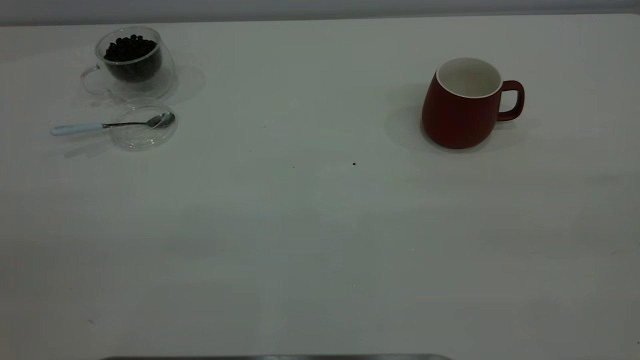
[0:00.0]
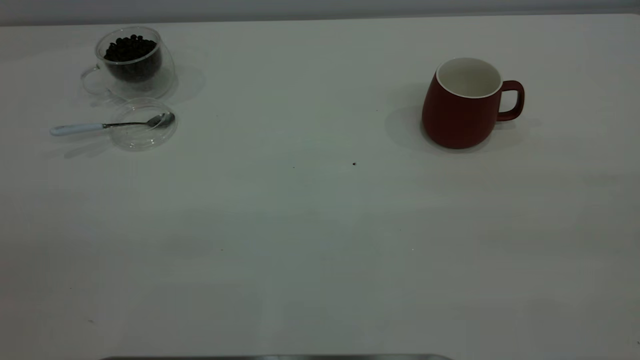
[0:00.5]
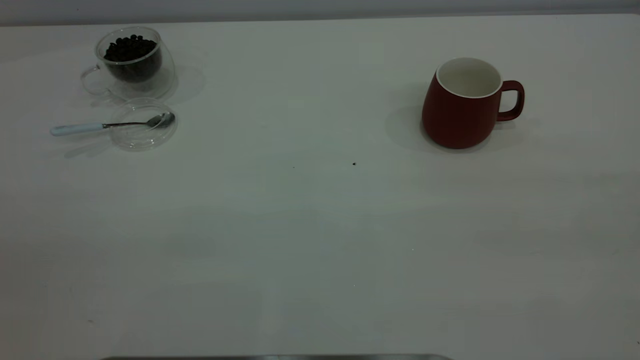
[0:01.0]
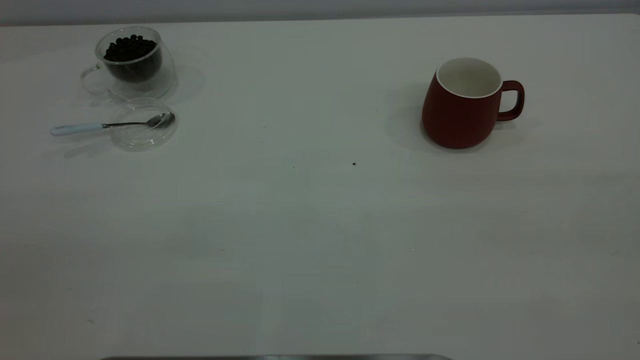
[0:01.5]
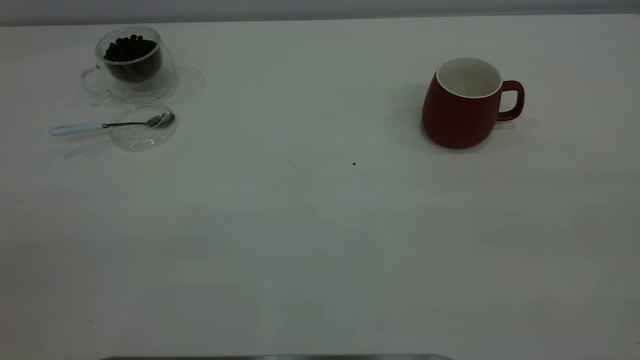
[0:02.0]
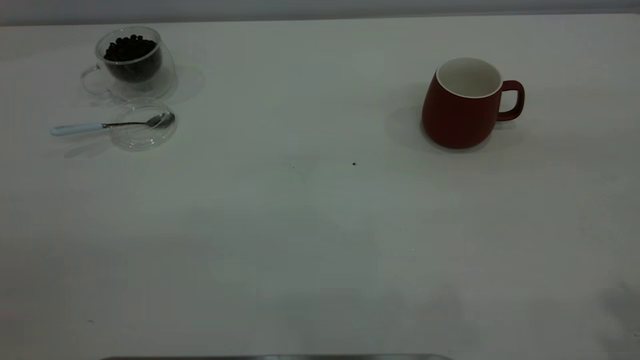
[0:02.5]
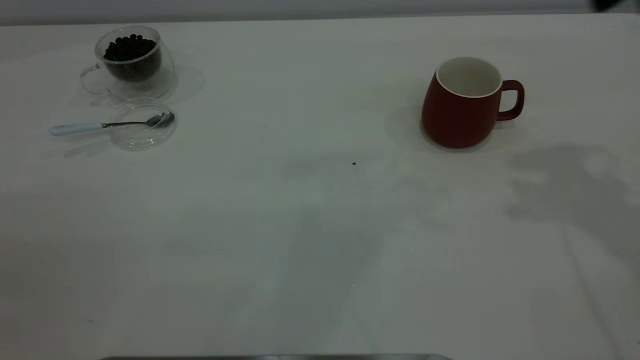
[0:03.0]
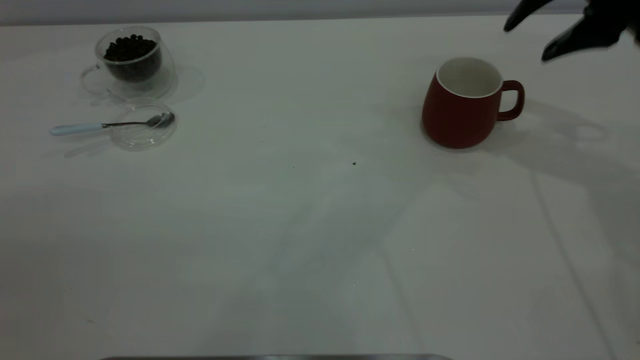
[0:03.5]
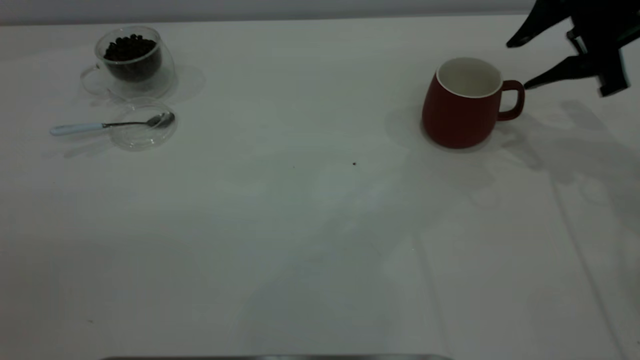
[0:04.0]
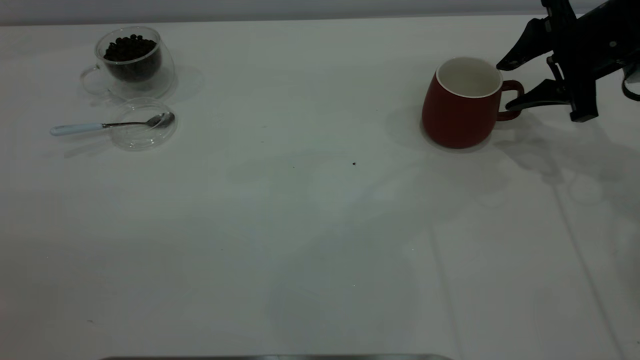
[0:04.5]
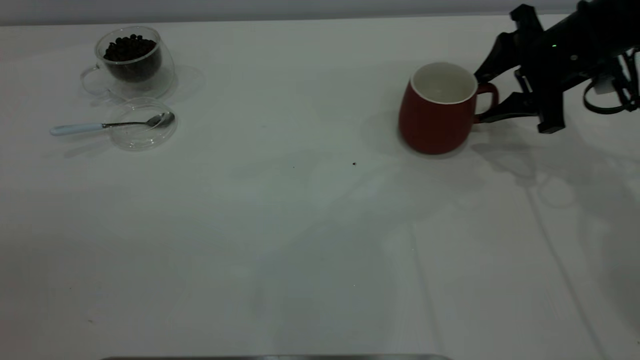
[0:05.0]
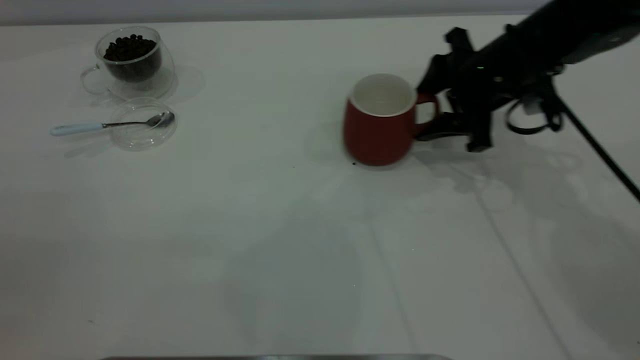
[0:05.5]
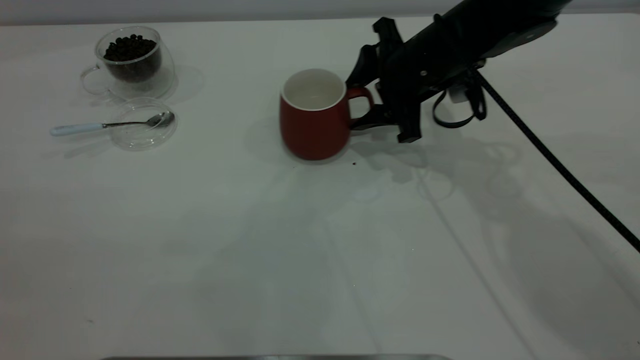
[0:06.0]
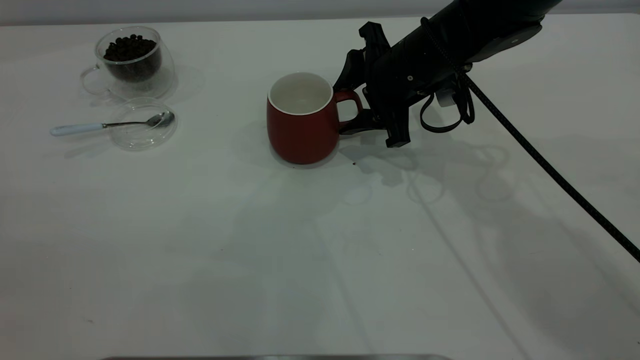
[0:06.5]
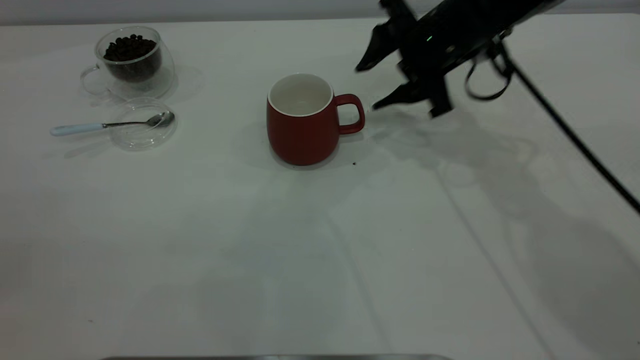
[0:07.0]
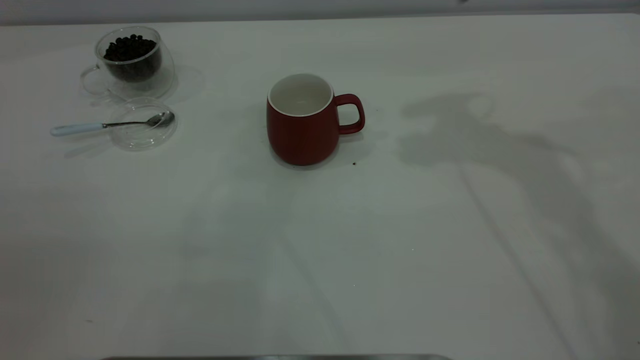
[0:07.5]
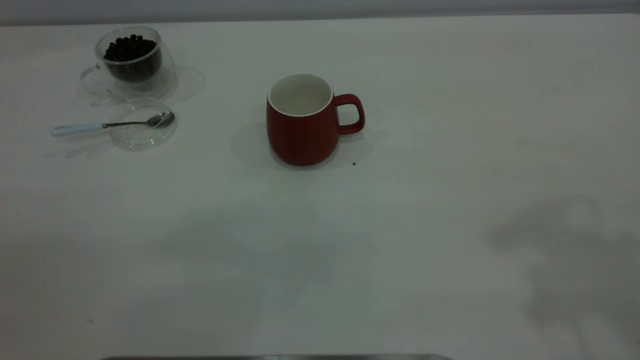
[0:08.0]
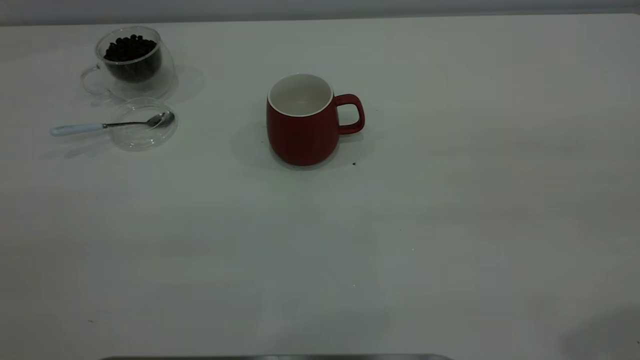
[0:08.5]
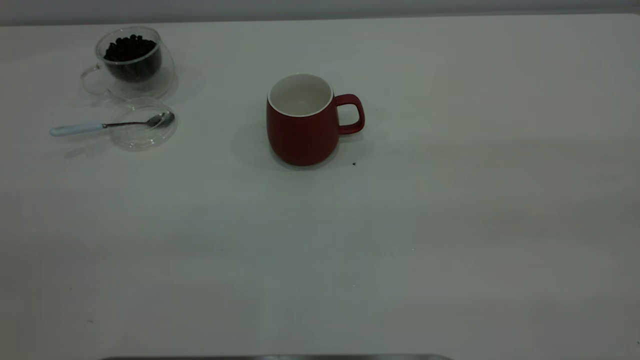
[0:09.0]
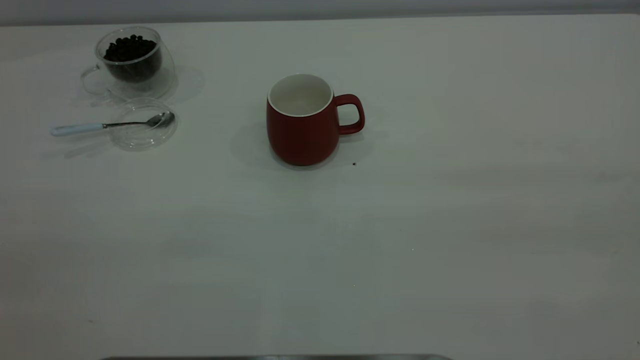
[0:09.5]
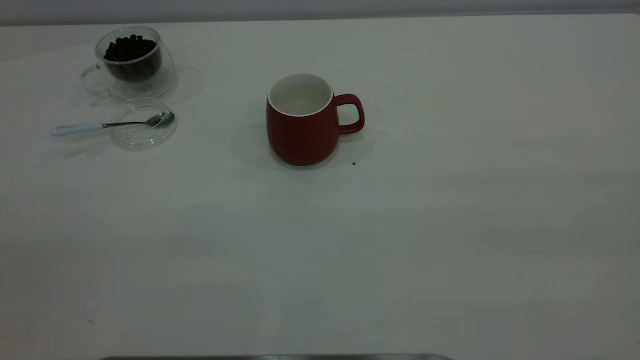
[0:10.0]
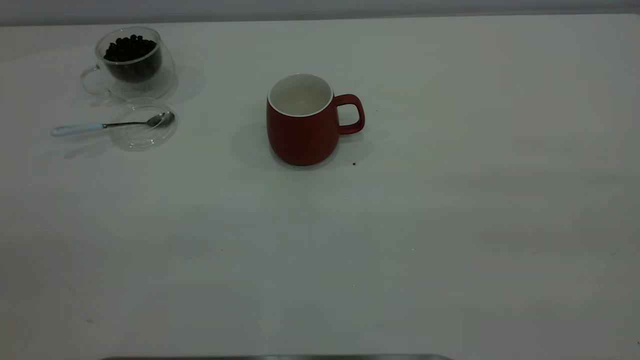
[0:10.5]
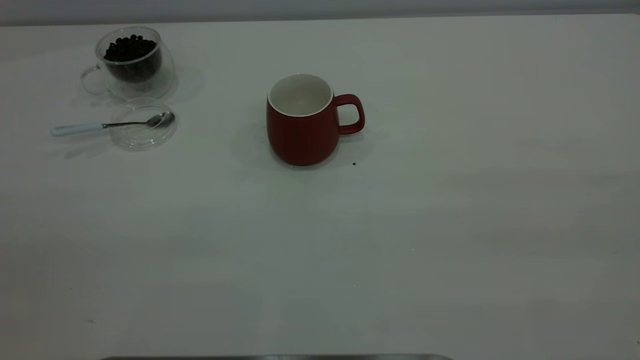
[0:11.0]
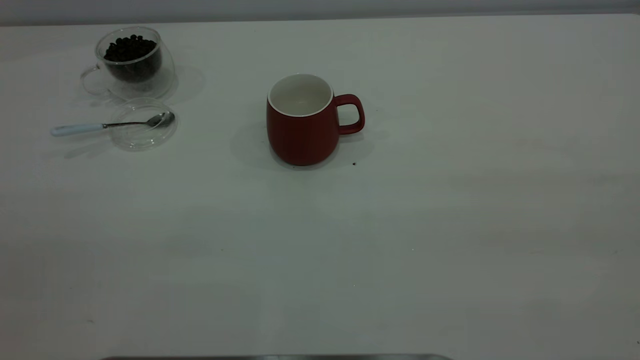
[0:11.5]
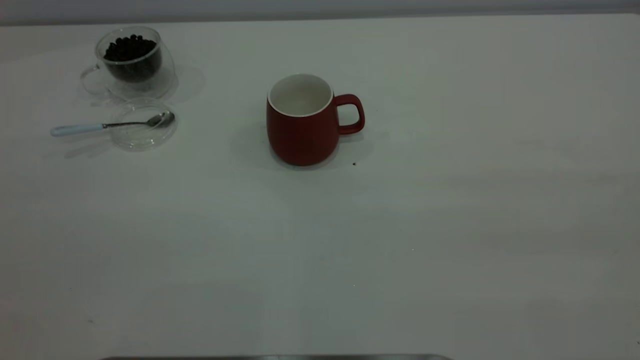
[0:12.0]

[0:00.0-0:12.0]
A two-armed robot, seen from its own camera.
Task of the whole recording: the right gripper place the red cup in the center of the table, the left gripper take the blue spoon from the cup lid and scoop out the coffee beans from the coffee cup and put them into the red cup, the left gripper put the spoon back into the cup lid.
Step, 0:00.0 to 0:06.5: Move the cup to the center of view.
0:00.0 to 0:02.0: Neither gripper changes place.
0:02.0 to 0:04.0: The right gripper heads forward and downward, covering roughly 40 cm.
0:04.0 to 0:06.0: The right gripper shifts roughly 20 cm to the left.
0:06.0 to 0:08.0: The right gripper heads upward, backward and to the right, covering about 40 cm.

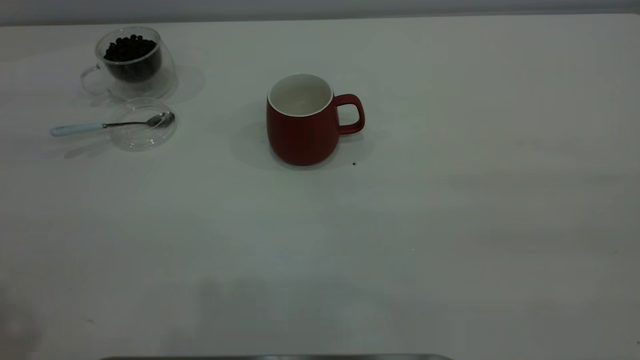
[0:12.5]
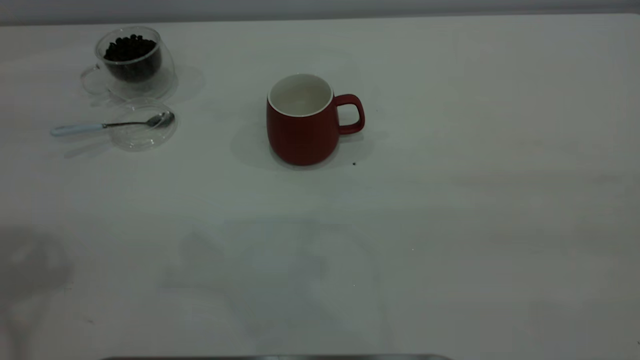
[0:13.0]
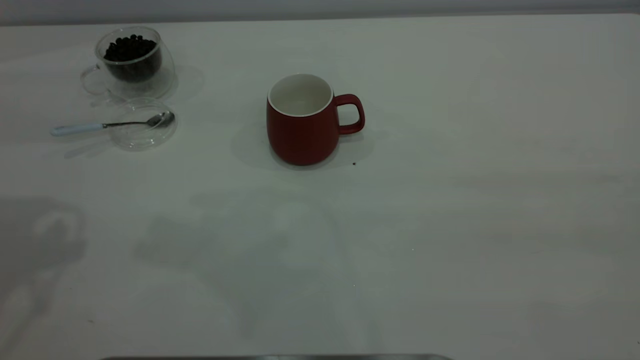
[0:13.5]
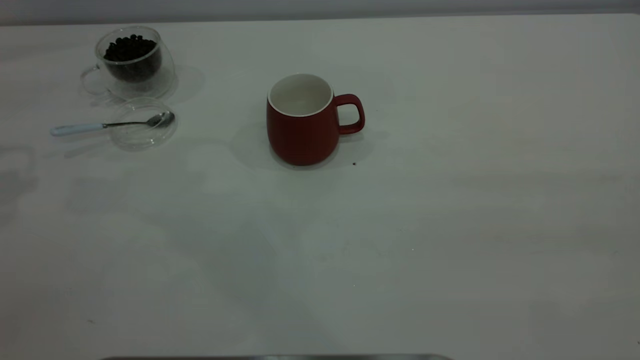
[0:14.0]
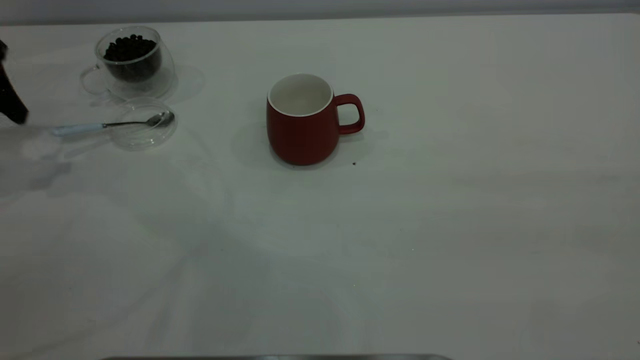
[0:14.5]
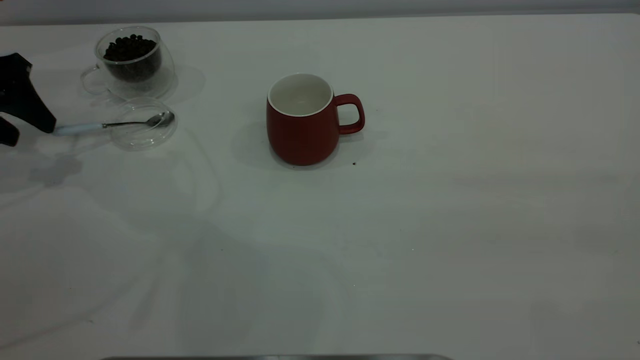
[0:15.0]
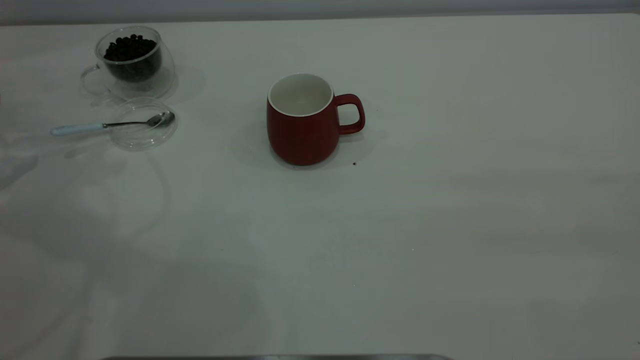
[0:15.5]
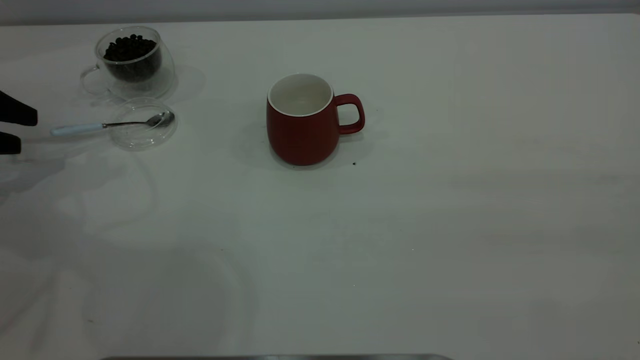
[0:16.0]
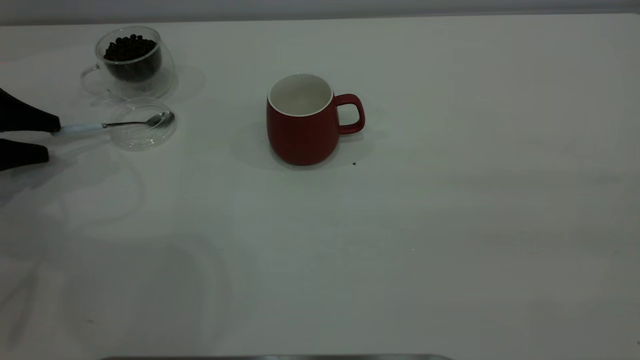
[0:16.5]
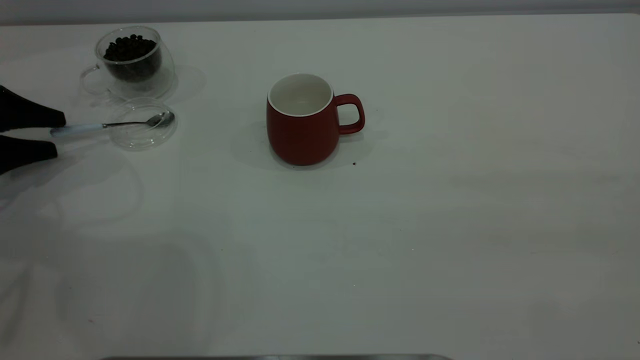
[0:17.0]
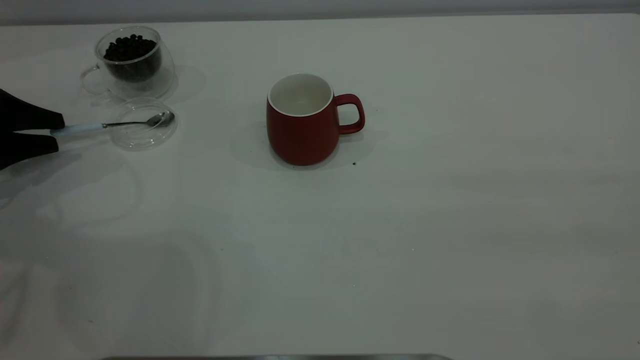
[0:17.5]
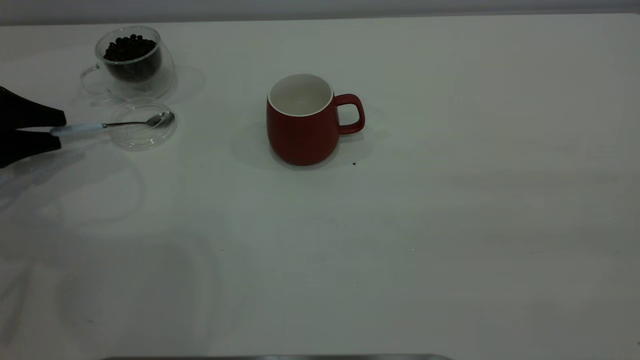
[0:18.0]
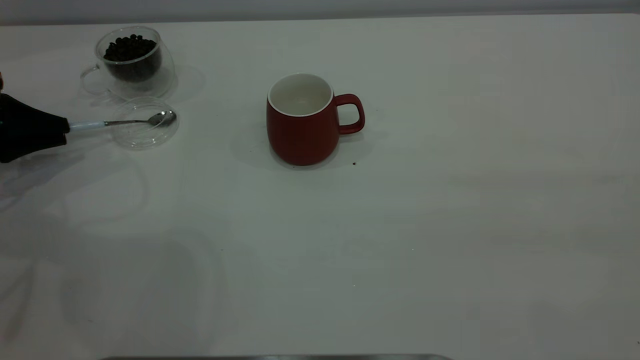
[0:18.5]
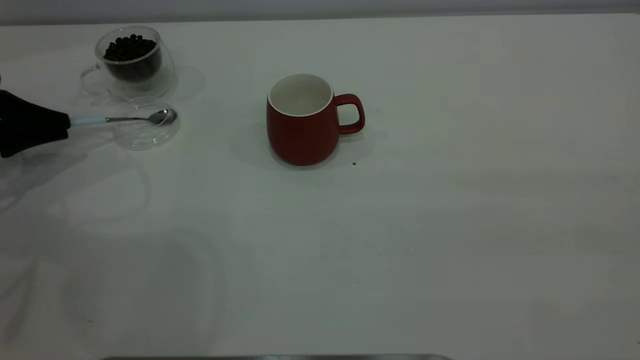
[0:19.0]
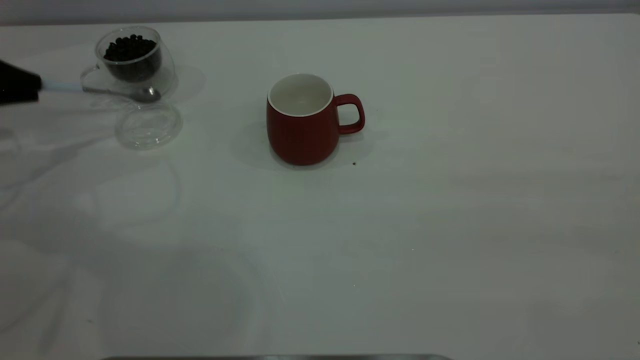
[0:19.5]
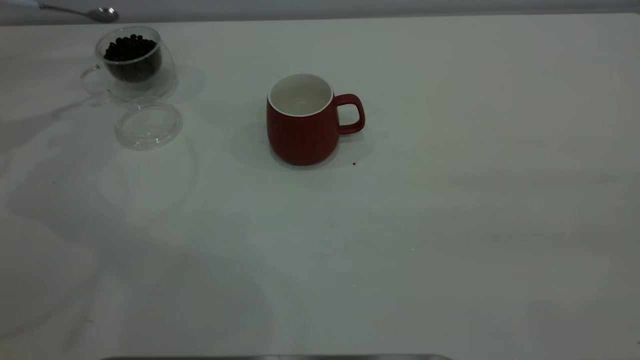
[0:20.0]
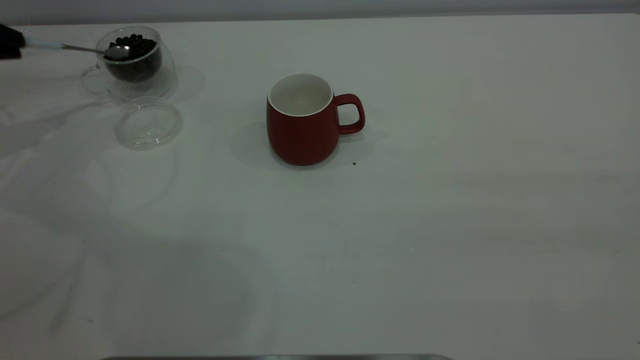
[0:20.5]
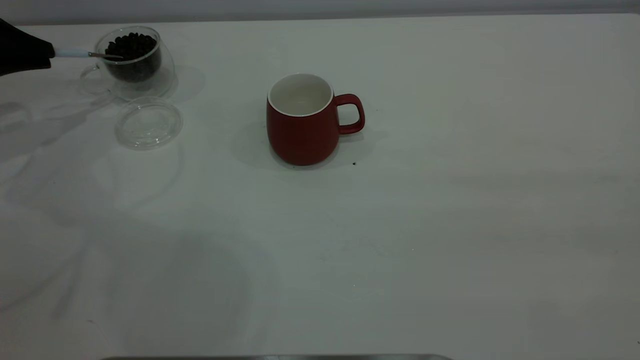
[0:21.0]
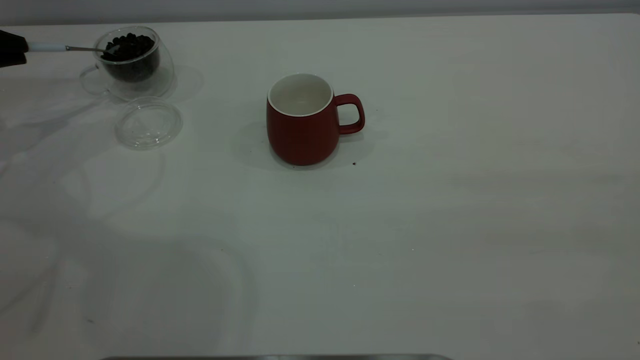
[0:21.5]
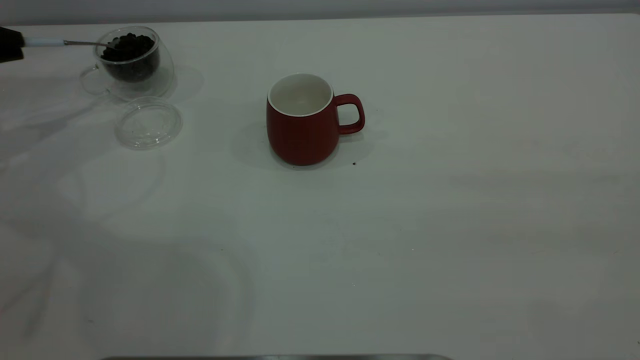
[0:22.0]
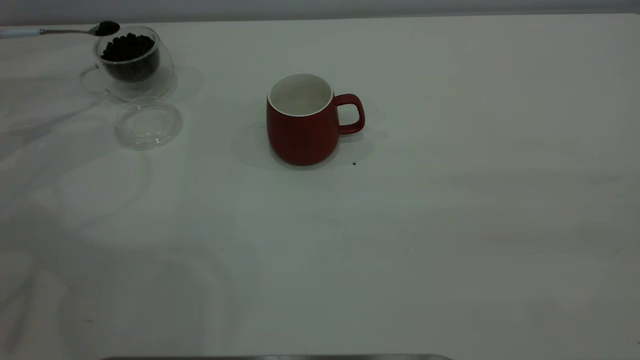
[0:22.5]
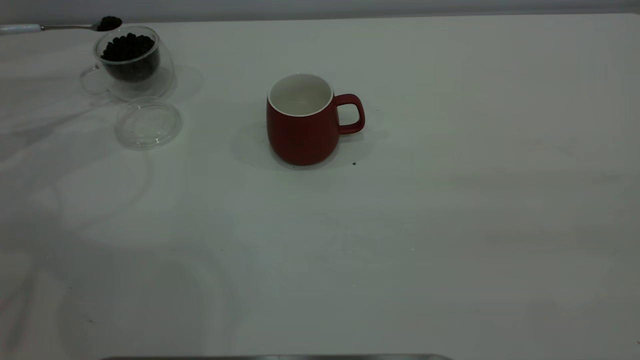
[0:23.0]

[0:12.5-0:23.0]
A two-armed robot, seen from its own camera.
Task of the whole recording: the right gripper place the red cup in the center of the table, the left gripper take the blue spoon from the cup lid and scoop out the coffee beans from the coffee cup and put them into the red cup, the left gripper put the spoon back into the cup lid.
Step, 0:12.5 to 0:19.0: Pick up the spoon.
0:14.5 to 0:16.5: The left gripper heads downward, covering approximately 10 cm.
0:16.5 to 0:19.0: The left gripper closes.
0:19.0 to 0:21.0: The left gripper shifts approximately 10 cm upward and forward.
0:21.0 to 0:23.0: The grippers make only small movements.
